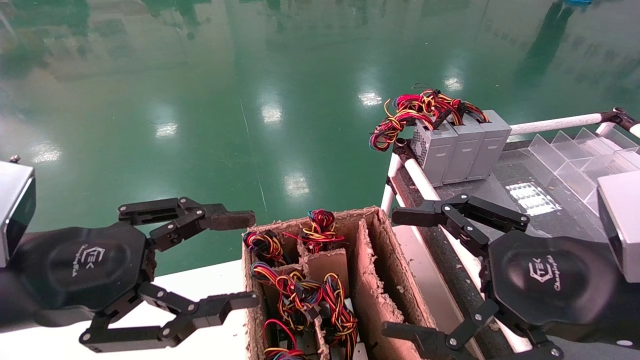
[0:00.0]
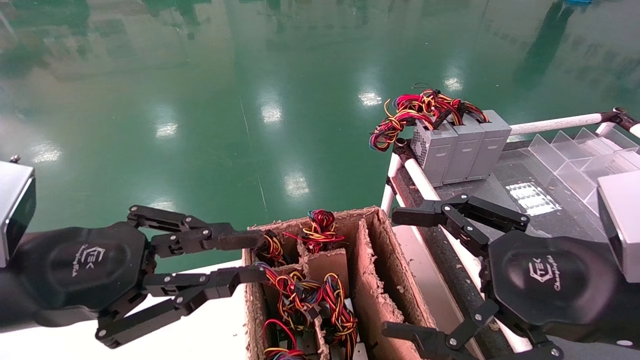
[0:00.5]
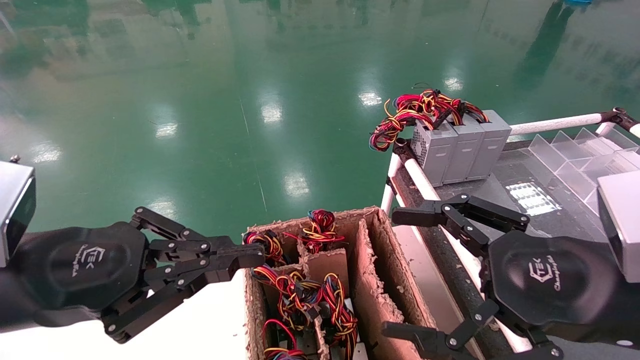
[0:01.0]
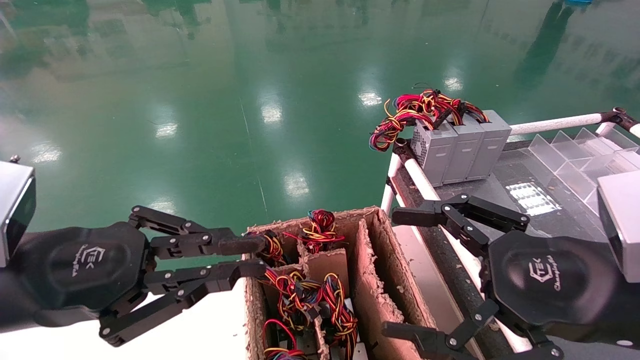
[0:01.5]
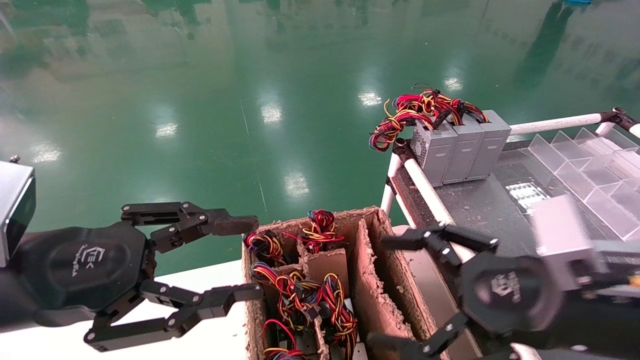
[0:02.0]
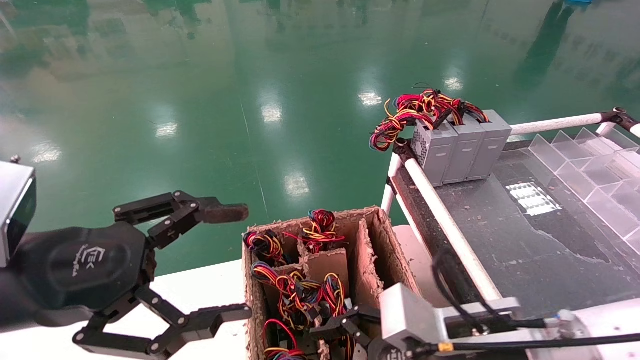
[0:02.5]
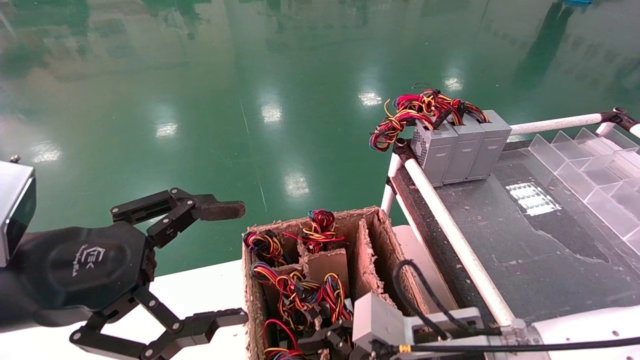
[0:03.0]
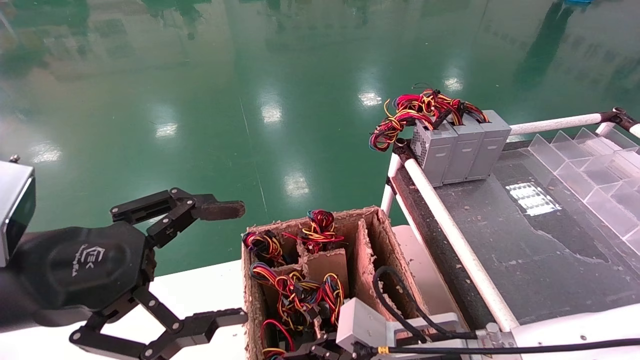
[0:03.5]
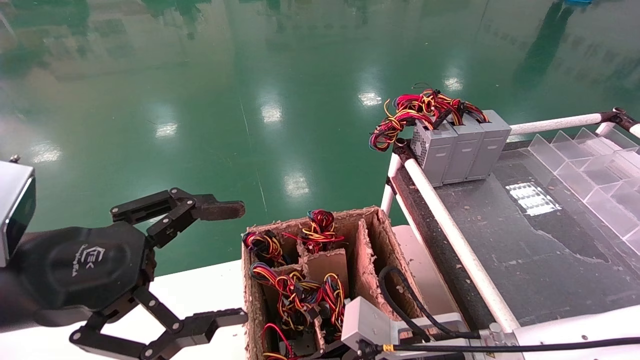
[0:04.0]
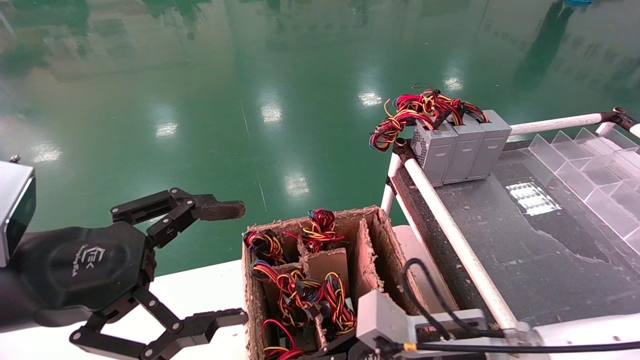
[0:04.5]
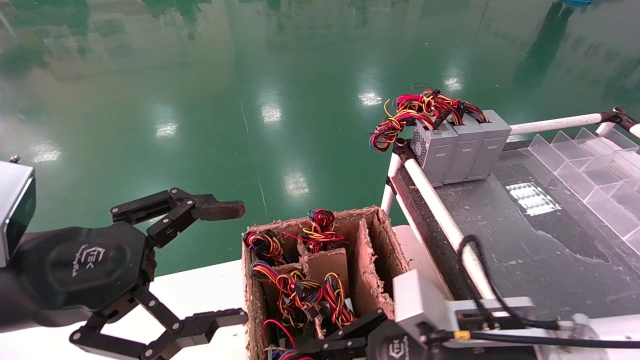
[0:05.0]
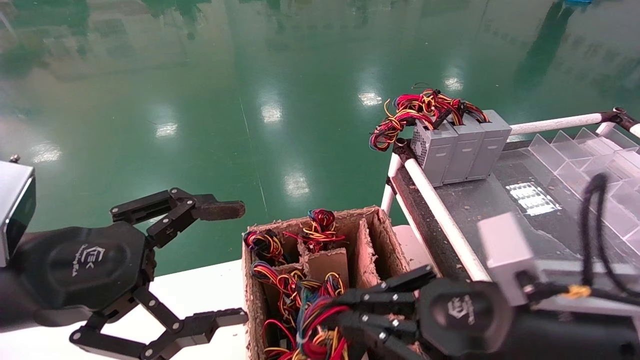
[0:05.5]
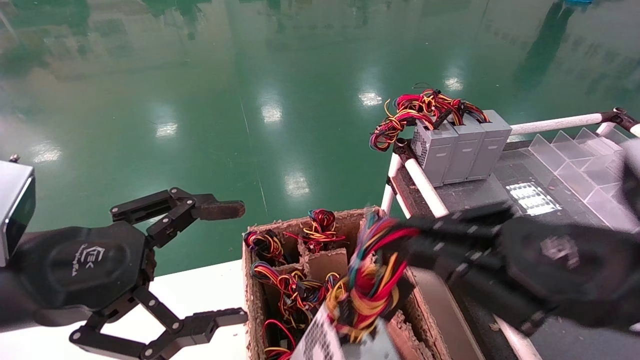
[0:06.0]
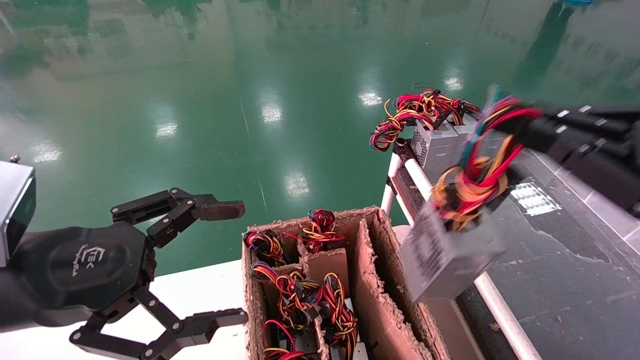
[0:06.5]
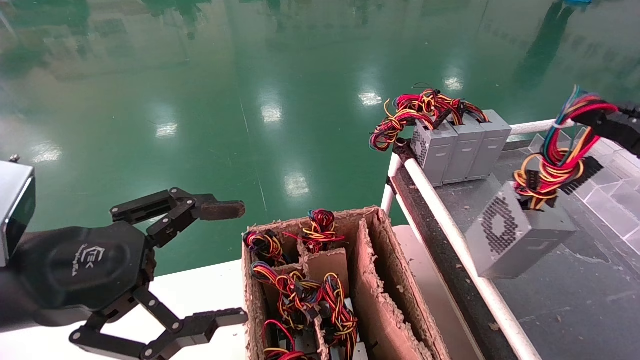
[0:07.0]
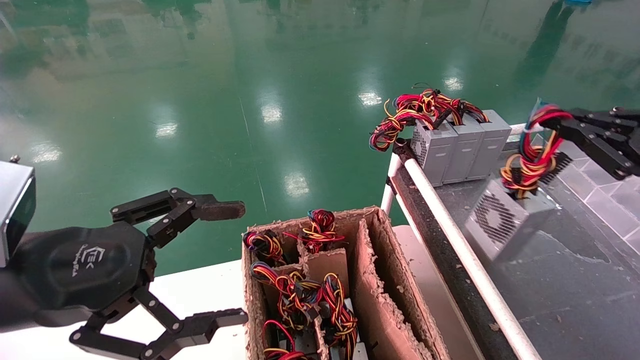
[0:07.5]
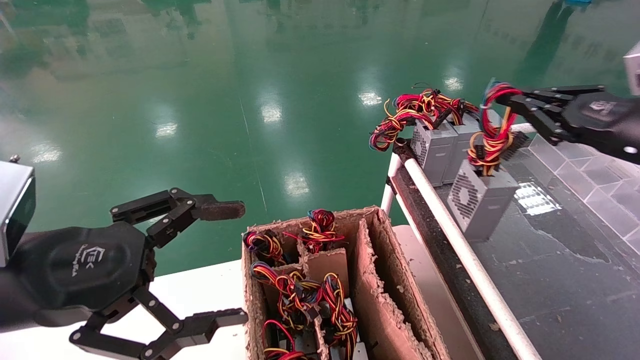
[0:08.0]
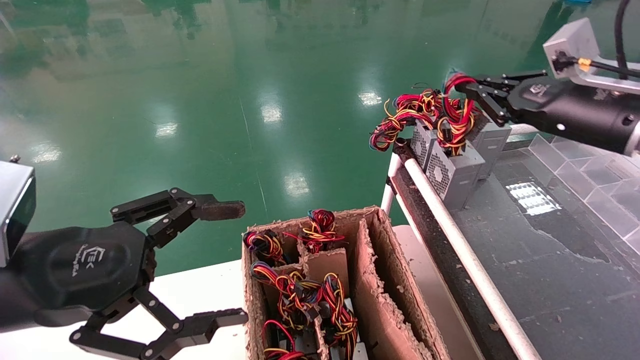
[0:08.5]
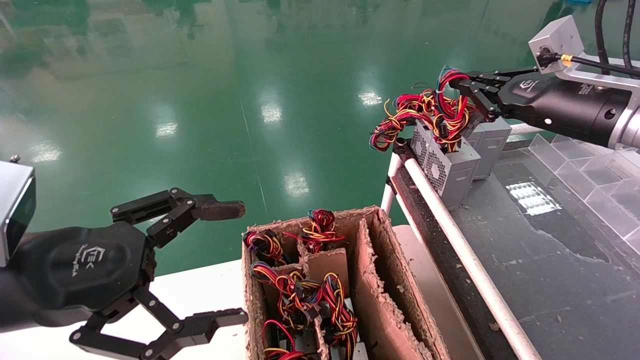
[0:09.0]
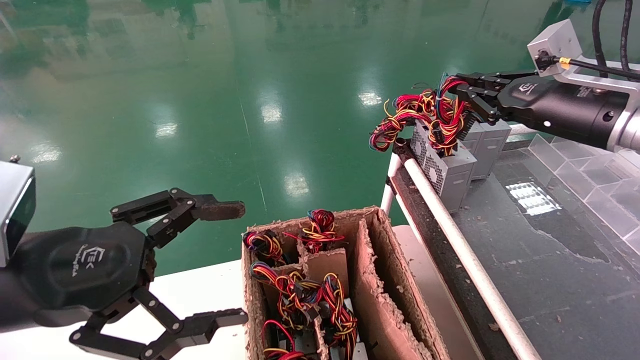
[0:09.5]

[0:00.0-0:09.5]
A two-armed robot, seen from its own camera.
Step, 0:01.5 to 0:04.0: Grab and lift the power supply from the large box.
0:00.0 to 0:02.0: The left gripper closes, then reopens.
0:02.0 to 0:04.0: The right gripper is displaced downward and to the left by some 15 cm, and closes up. Meanwhile the left gripper opens its fingers.
0:04.0 to 0:05.5: The right gripper heads upward, to the right and backward, covering approximately 15 cm.
0:05.5 to 0:07.5: The right gripper goes roughly 25 cm to the right and upward.
0:07.5 to 0:09.5: The right gripper heads forward and to the left, covering approximately 15 cm.

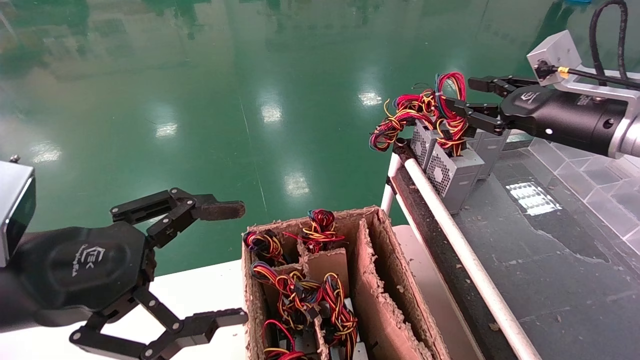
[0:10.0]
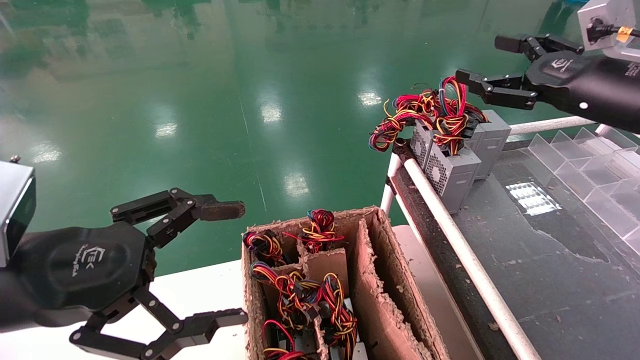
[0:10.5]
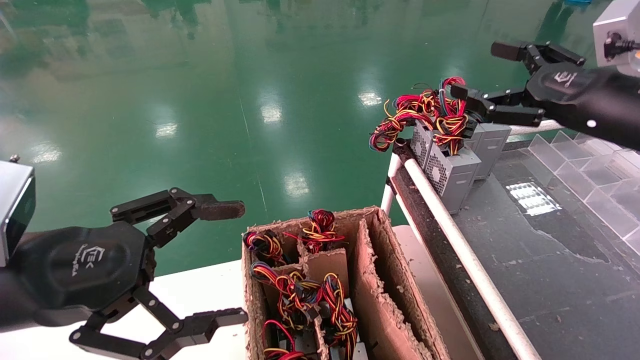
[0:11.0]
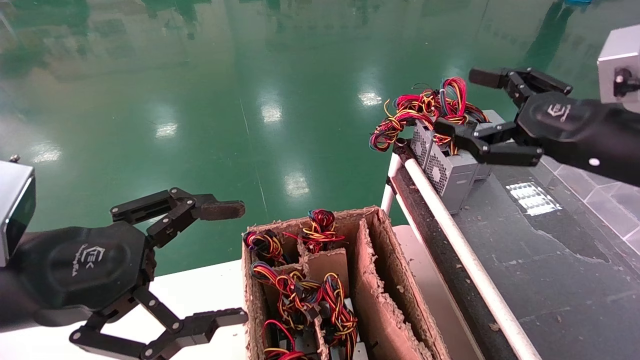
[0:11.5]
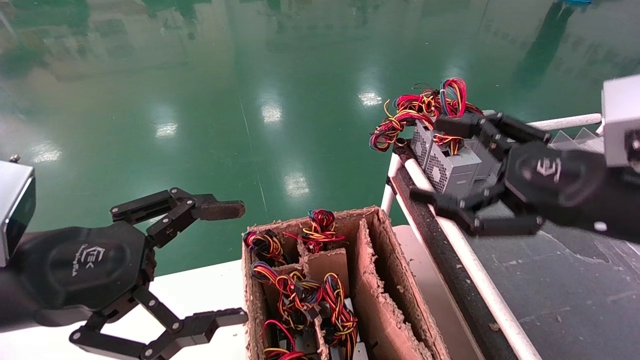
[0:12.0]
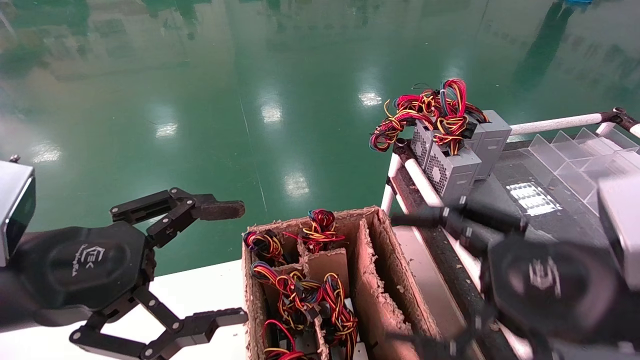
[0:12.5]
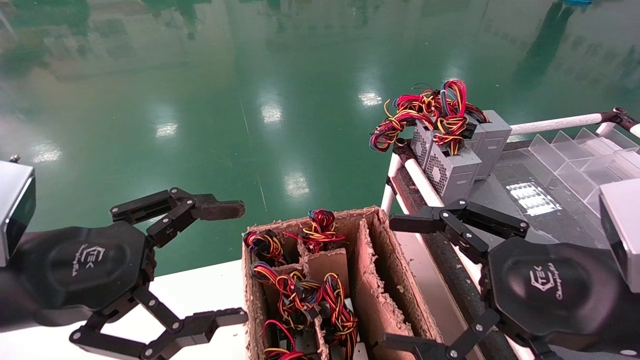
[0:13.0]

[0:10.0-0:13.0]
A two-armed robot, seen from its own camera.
0:10.0 to 0:11.5: The right gripper heads backward, covering approximately 10 cm, and opens.
0:11.5 to 0:13.0: The right gripper shifts about 15 cm backward, downward and to the left.
